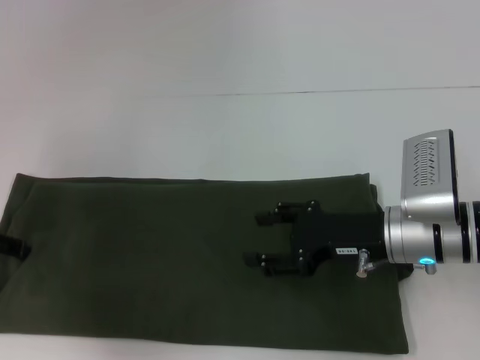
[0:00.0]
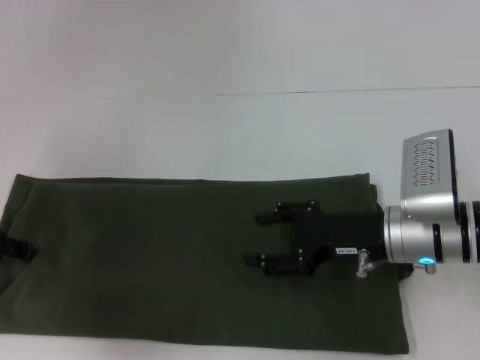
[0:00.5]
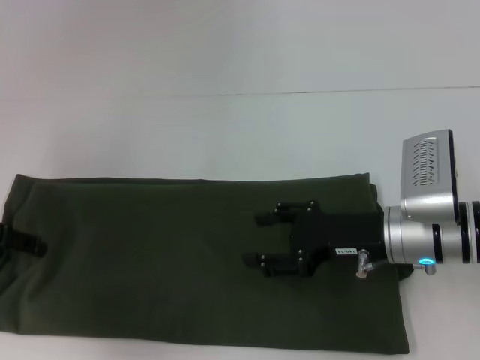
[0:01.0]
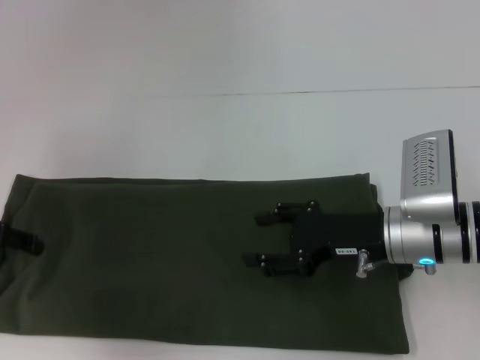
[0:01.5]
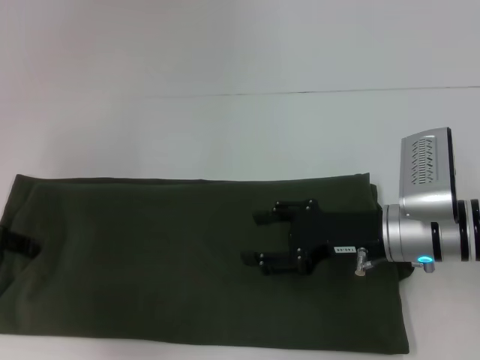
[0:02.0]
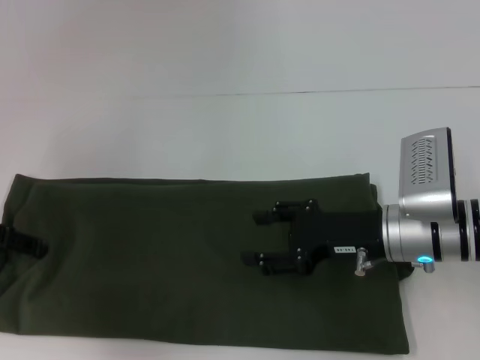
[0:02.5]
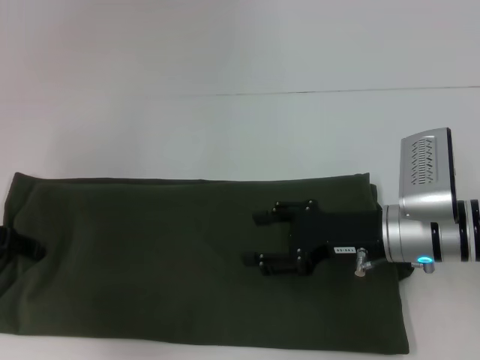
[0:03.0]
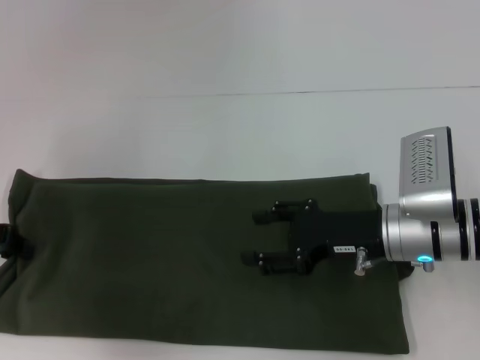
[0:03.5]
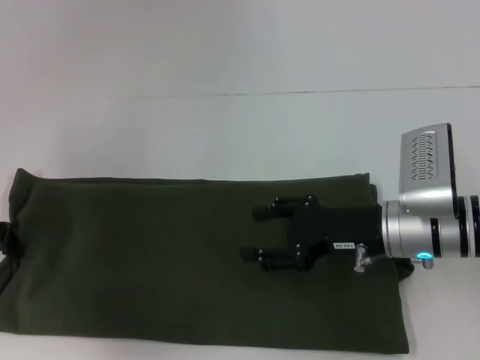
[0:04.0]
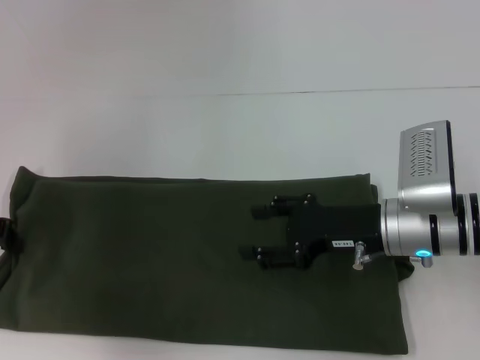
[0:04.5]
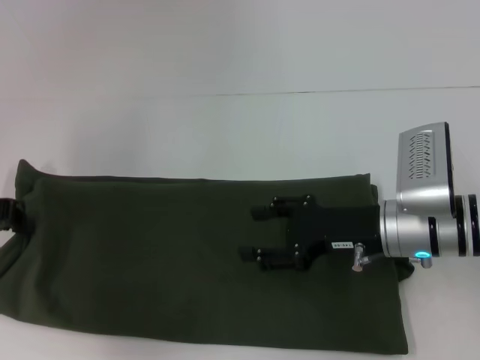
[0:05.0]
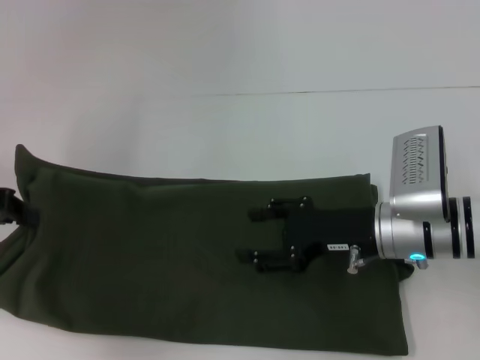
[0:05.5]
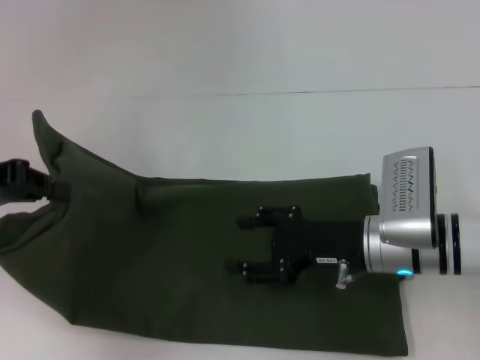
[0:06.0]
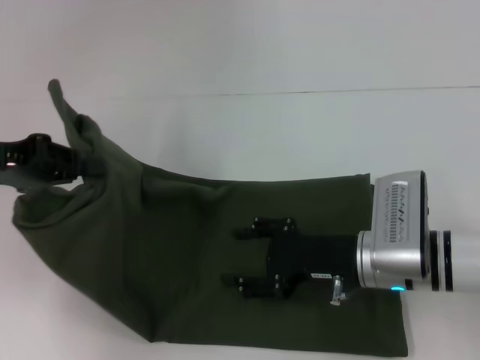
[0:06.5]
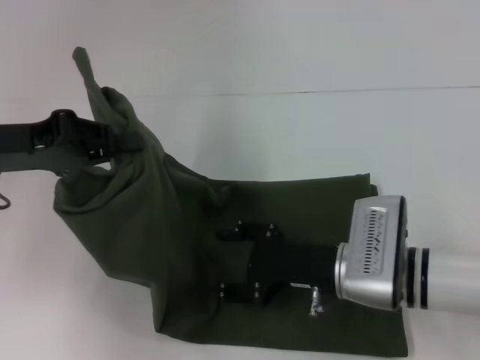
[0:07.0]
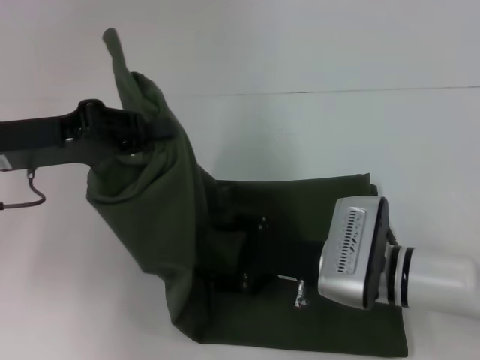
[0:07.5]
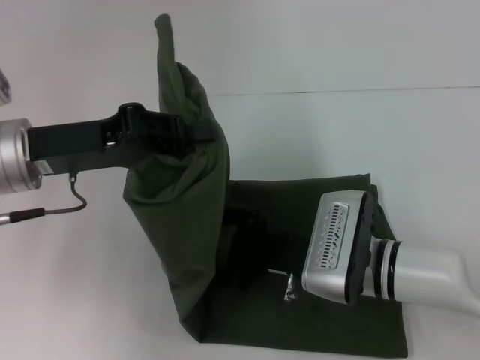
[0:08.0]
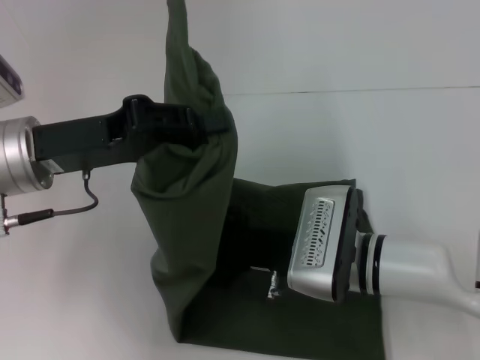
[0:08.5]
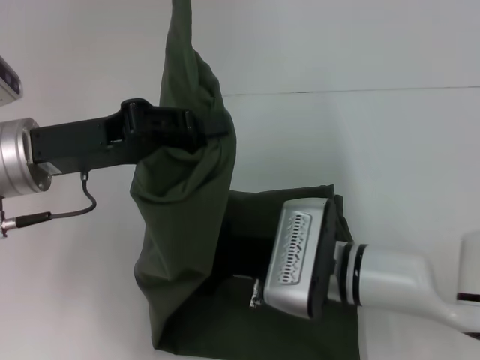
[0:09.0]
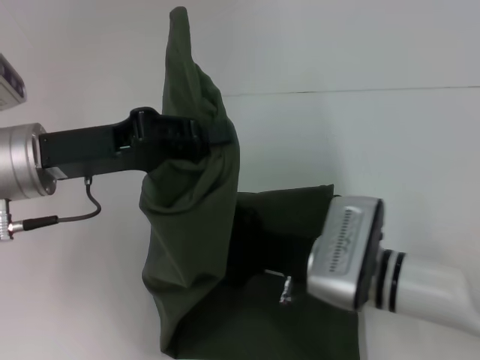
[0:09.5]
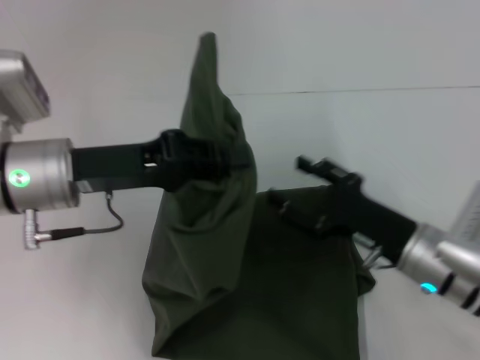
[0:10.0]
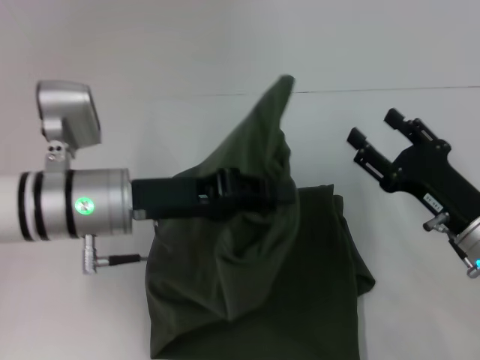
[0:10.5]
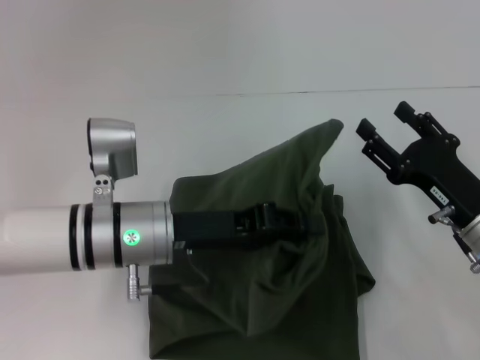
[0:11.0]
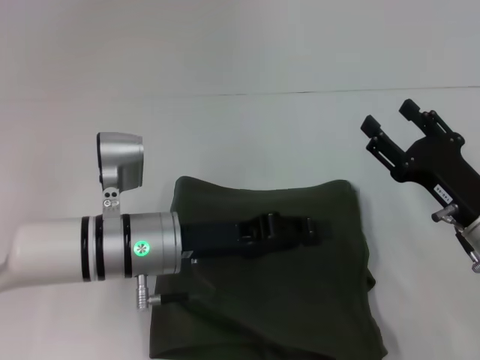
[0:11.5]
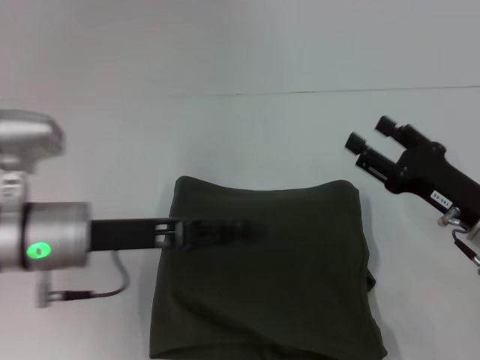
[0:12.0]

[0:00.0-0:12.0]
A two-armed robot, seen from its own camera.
Step, 0:00.0 to 0:11.5: Fold the clothes with your left hand.
0:00.0 to 0:02.0: The grippers stay close to where they were, moving slightly.
0:04.0 to 0:06.0: The left gripper shifts approximately 5 cm upward.
0:06.0 to 0:08.0: The right gripper travels to the left by approximately 5 cm, while the left gripper is displaced to the right by roughly 10 cm.
0:08.0 to 0:10.0: The right gripper travels to the right by roughly 10 cm.
0:10.0 to 0:12.0: The left gripper goes to the right and returns, roughly 10 cm each way, and opens. Meanwhile the right gripper heads to the right, covering roughly 5 cm.

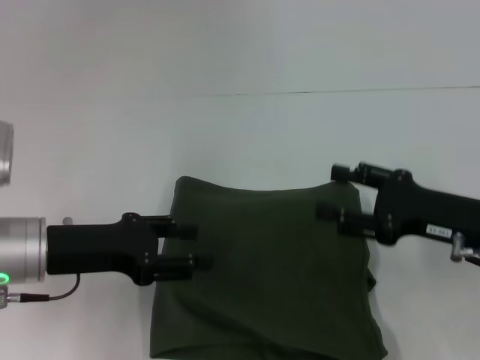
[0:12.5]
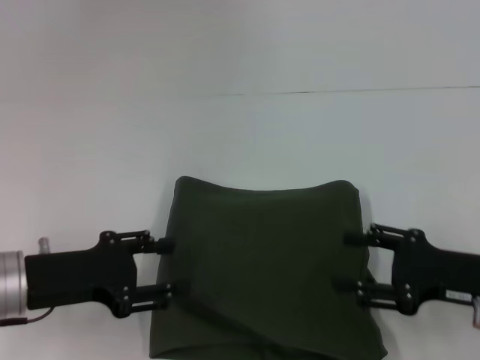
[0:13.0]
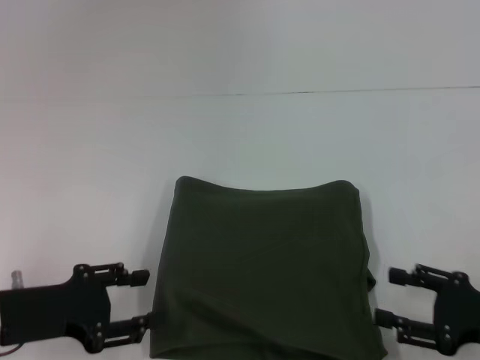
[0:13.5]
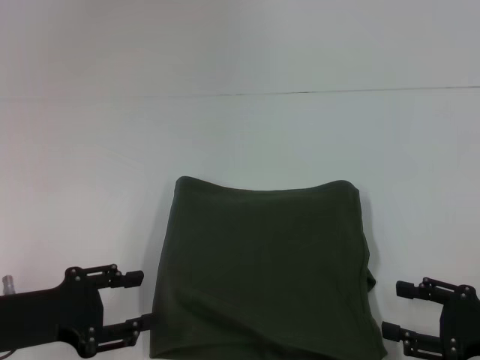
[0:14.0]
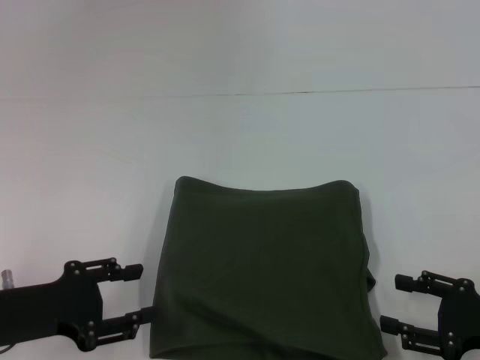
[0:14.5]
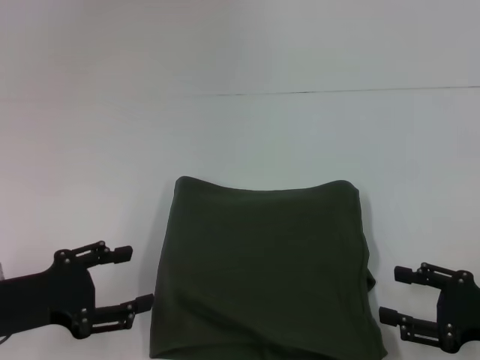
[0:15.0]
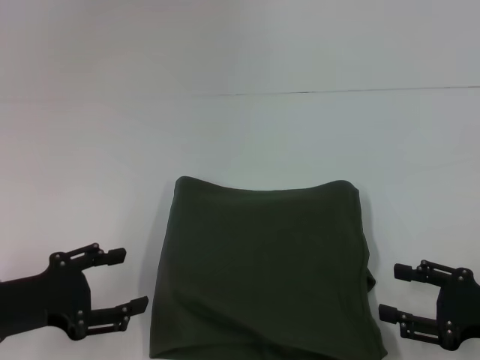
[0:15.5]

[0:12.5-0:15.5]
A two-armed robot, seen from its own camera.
0:12.5 to 0:14.0: The left gripper shifts about 5 cm backward. The right gripper shifts roughly 10 cm backward, to the right and downward.
0:14.0 to 0:15.5: The grippers move only a little.

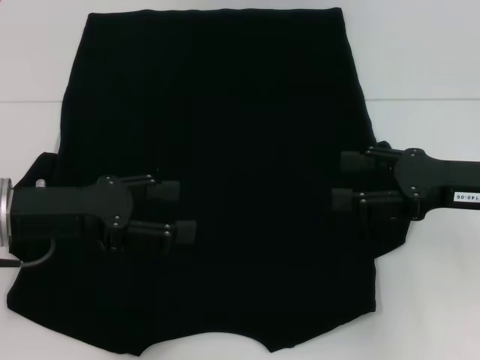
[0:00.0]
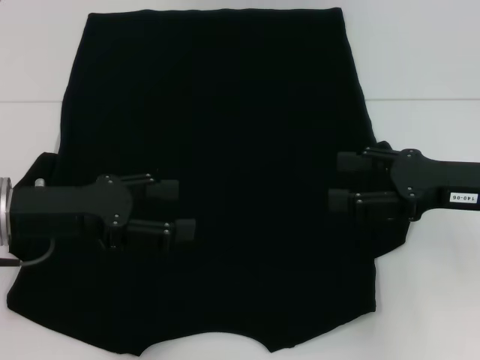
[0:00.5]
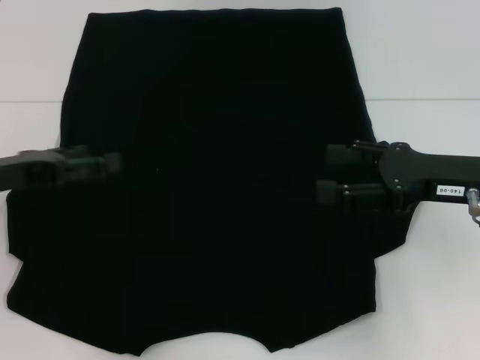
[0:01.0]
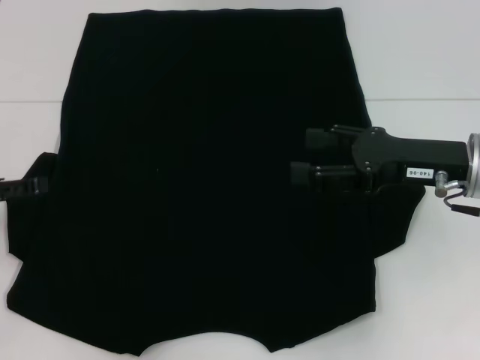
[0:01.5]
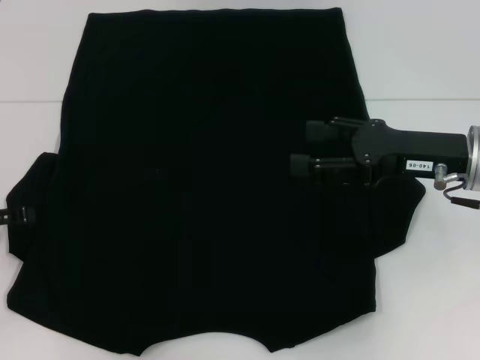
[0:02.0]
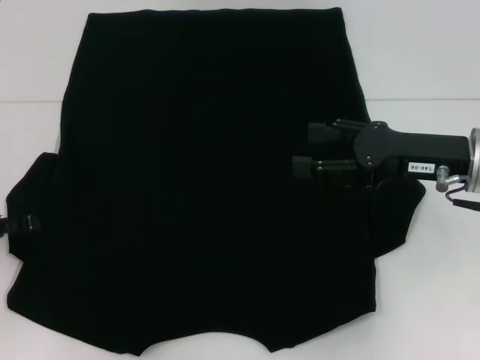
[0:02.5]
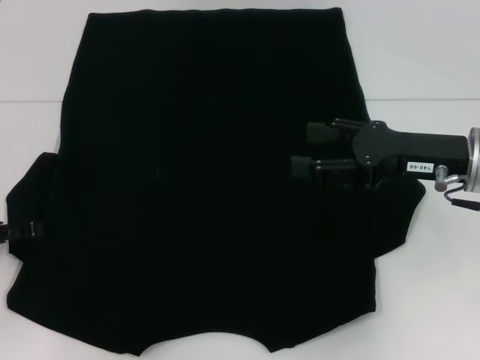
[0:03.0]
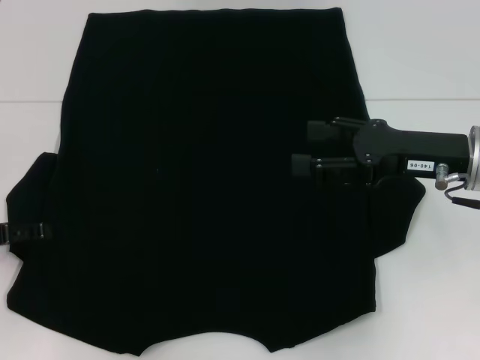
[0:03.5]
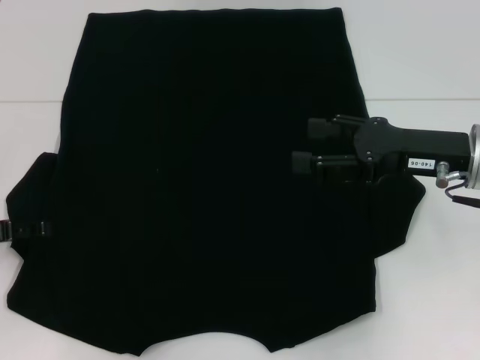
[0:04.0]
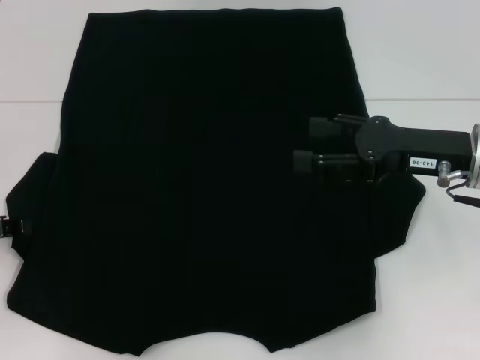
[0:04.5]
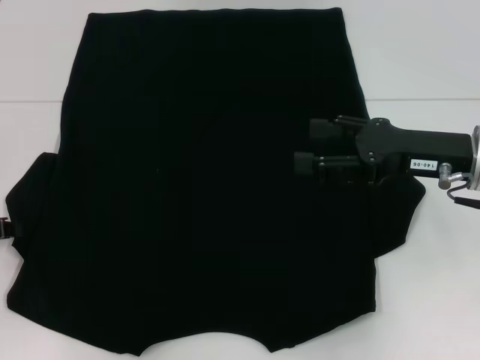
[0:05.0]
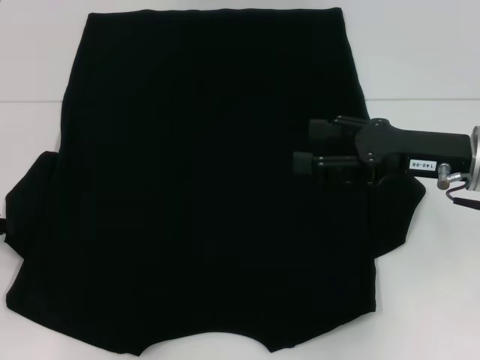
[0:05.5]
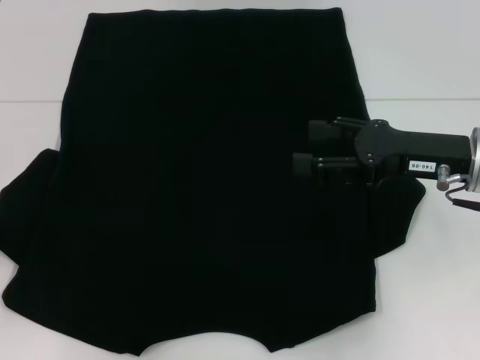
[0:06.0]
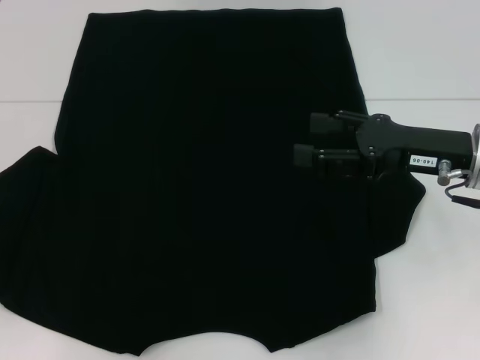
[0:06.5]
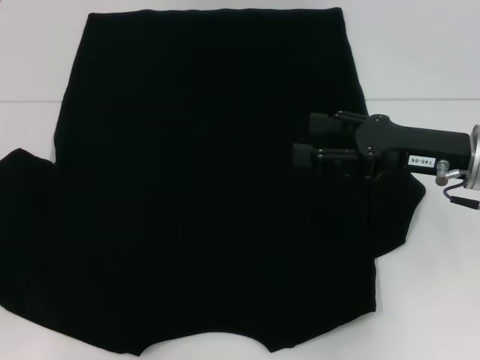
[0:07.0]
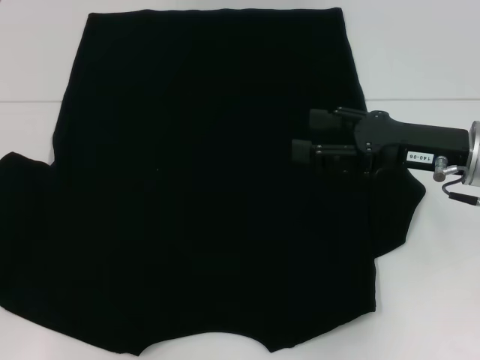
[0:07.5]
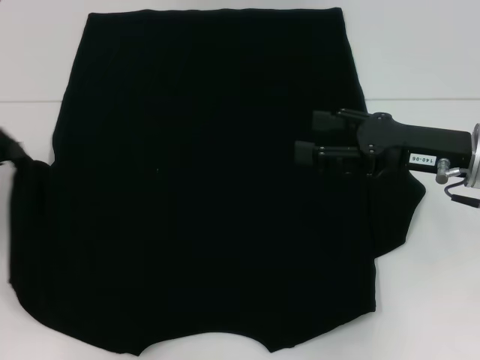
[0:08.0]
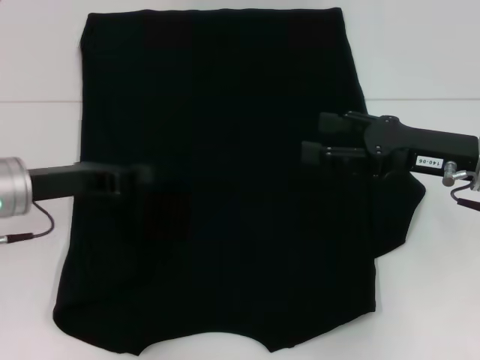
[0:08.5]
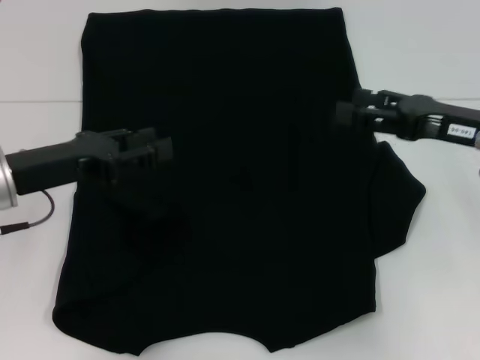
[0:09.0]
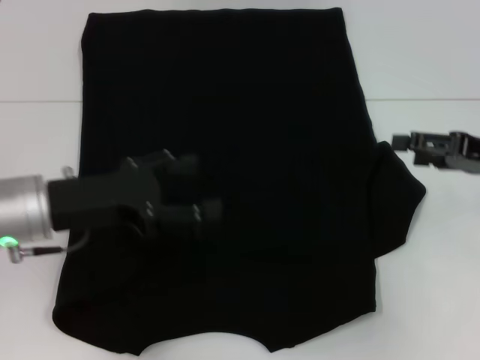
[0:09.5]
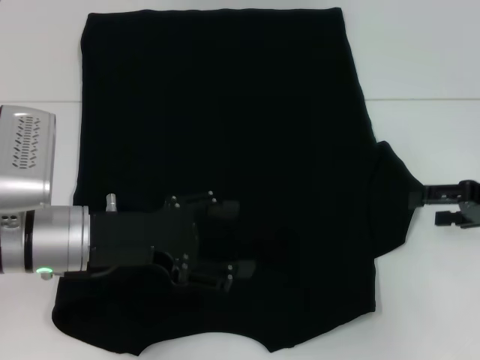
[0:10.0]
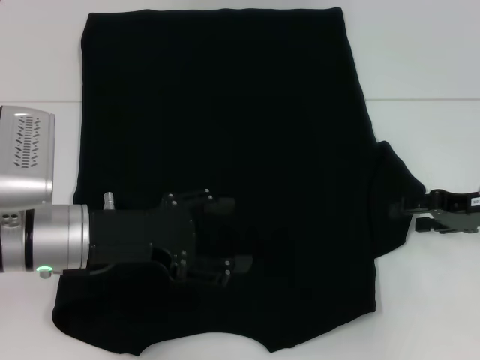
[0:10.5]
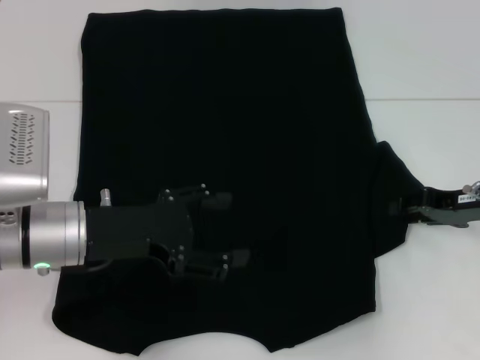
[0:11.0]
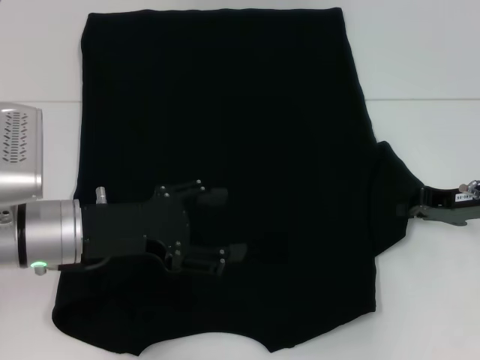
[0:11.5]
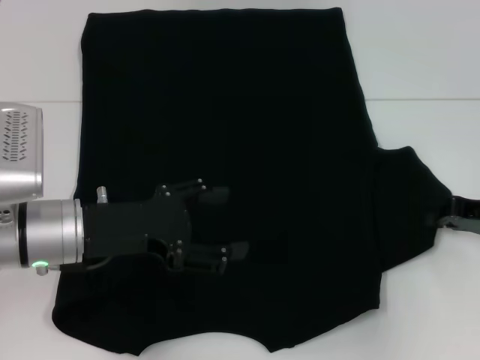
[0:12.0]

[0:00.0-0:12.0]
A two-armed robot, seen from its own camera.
Step, 0:00.0 to 0:08.5: Fold the bottom left sleeve with your left hand.
0:00.0 to 0:02.0: The left gripper shifts roughly 10 cm to the left.
0:02.0 to 0:04.0: There are only small adjustments of the grippers.
0:04.0 to 0:06.0: The left gripper closes up.
0:06.0 to 0:08.0: The grippers stay close to where they were, moving slightly.
0:08.0 to 0:10.0: The left gripper shifts roughly 15 cm to the right, and opens. Meanwhile the right gripper goes approximately 10 cm to the right.
0:10.0 to 0:12.0: The right gripper closes up.
